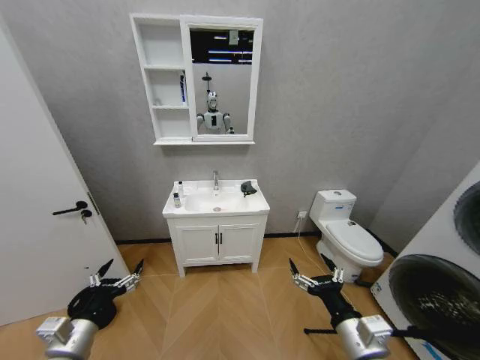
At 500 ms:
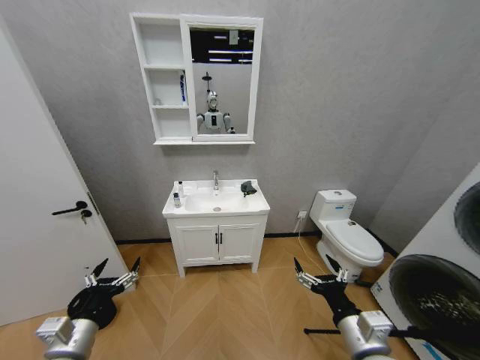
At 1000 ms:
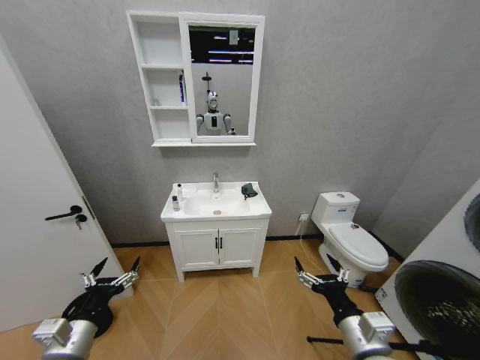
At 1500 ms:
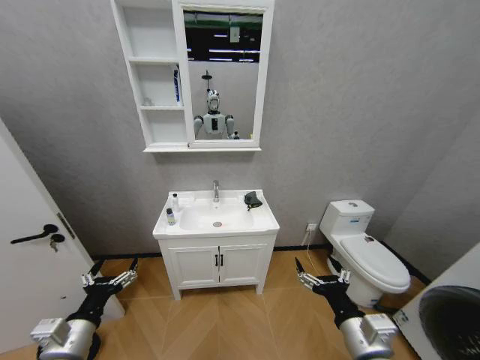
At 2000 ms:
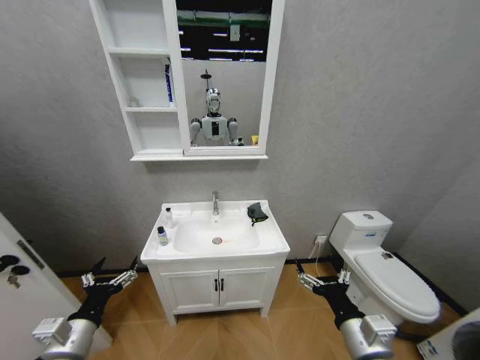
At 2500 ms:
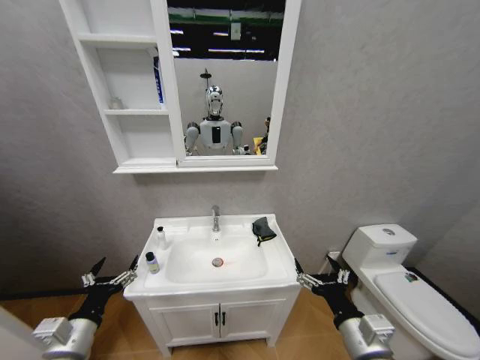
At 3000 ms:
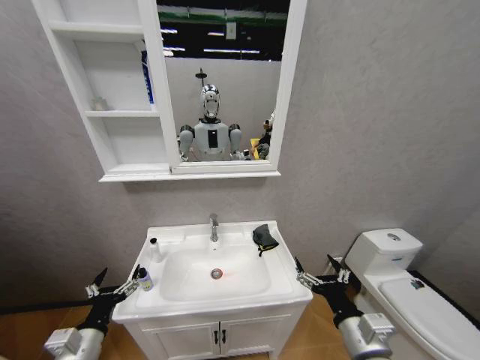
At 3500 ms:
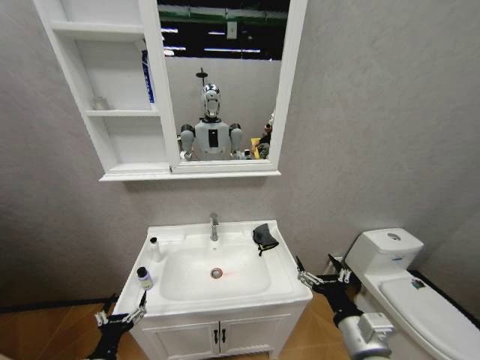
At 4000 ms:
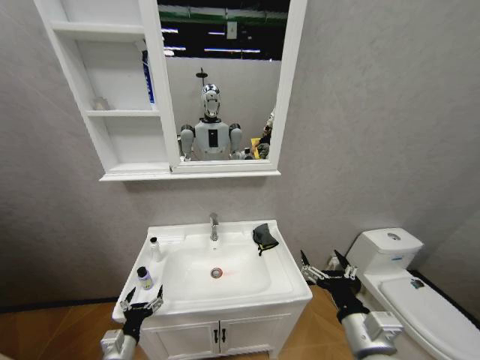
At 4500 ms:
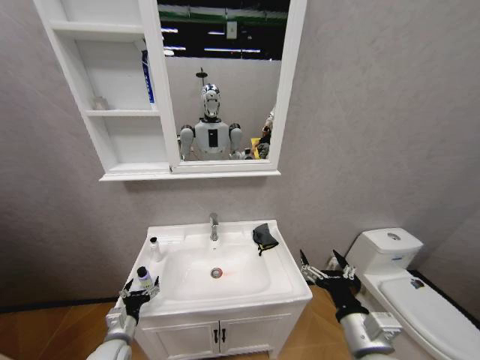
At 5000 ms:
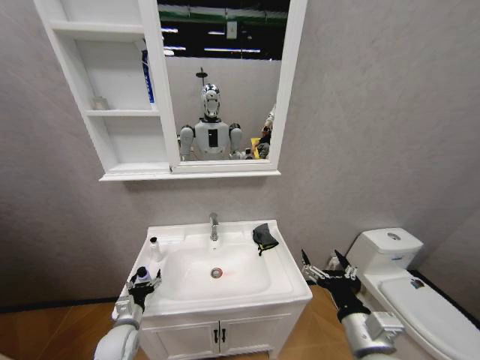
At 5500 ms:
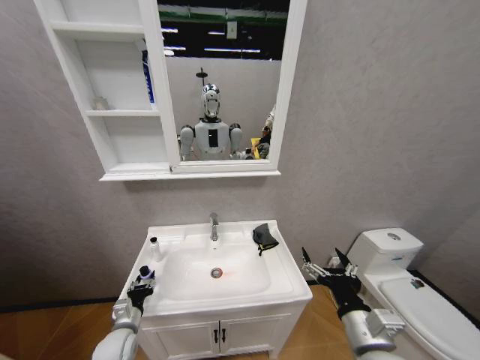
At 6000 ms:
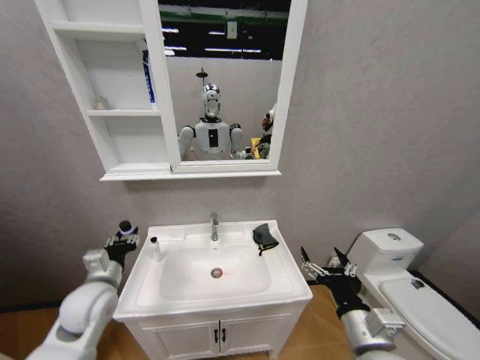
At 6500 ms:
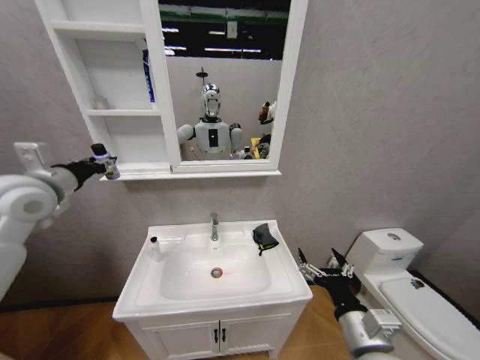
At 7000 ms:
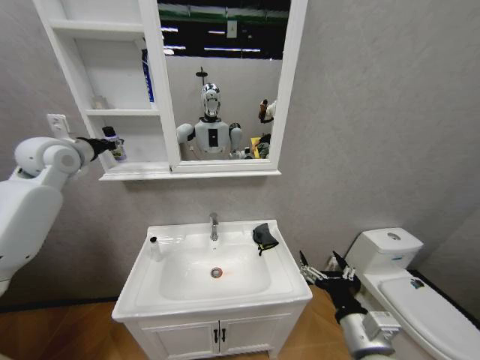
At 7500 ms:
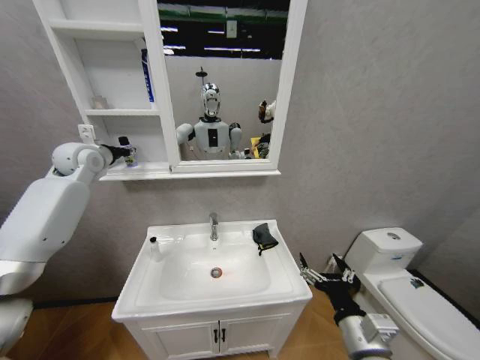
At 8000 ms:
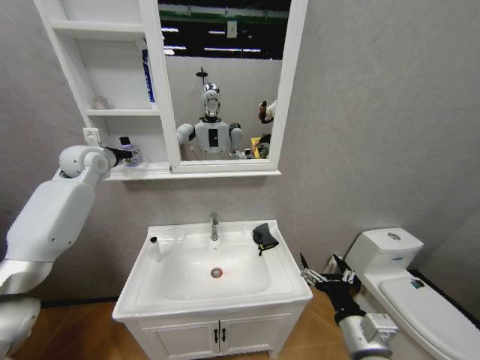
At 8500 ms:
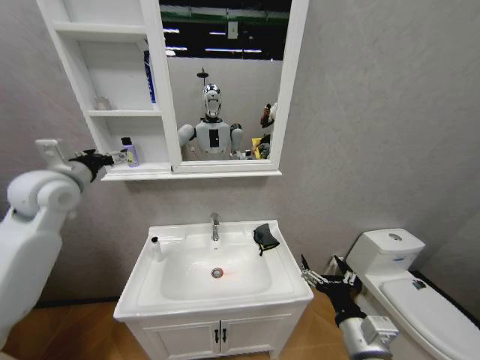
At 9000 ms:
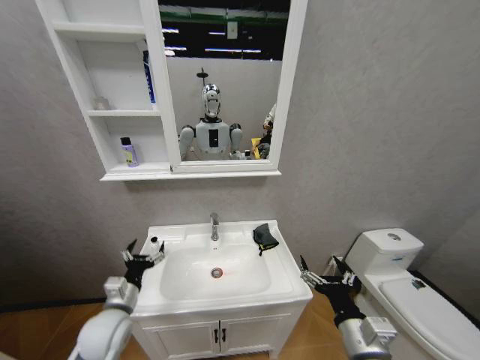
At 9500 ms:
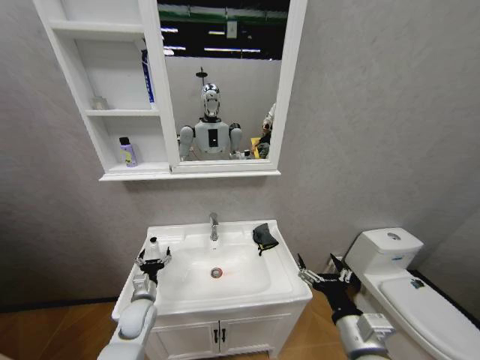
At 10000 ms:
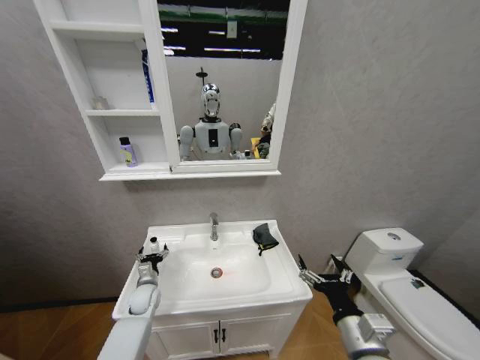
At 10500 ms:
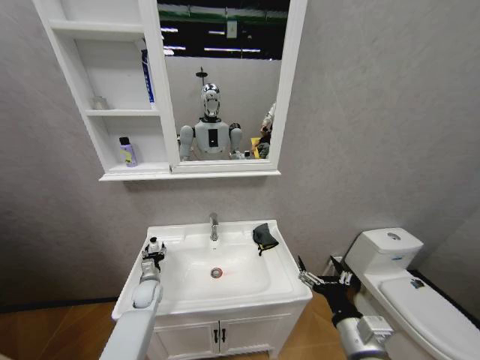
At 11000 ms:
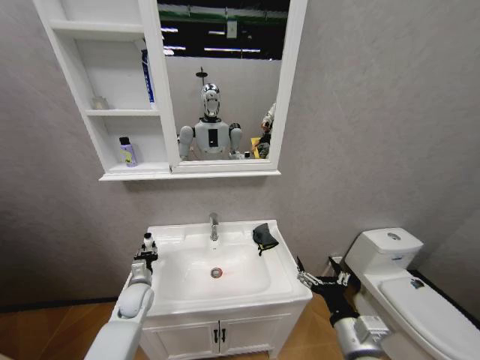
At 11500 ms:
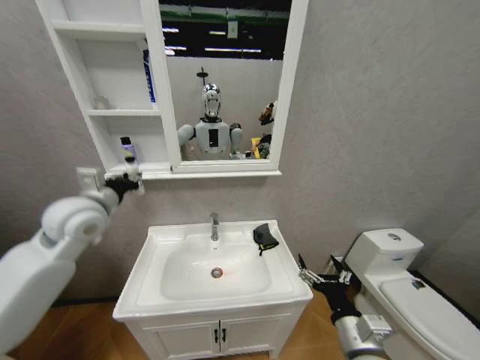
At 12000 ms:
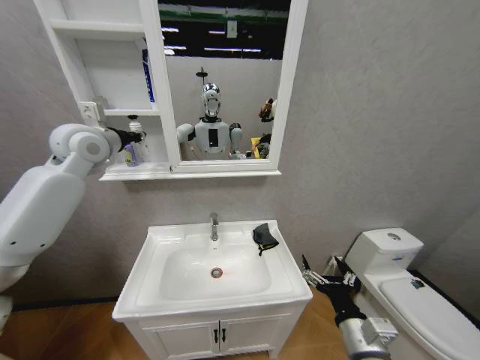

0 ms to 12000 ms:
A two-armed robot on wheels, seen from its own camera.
Task of the whole recording: Move facial cleanser and shampoo from washbasin to cabinet, then wipe washbasin with towel.
2000 ms to 4000 ms: The left gripper goes approximately 15 cm downward.
4000 ms to 6000 ms: The left gripper travels upward and forward by some 20 cm, and closes its fingers.
6000 ms to 8000 ms: The left gripper shifts approximately 35 cm upward and forward, and opens its fingers.
8000 ms to 10000 ms: The left gripper goes some 50 cm downward, and opens its fingers.
10000 ms to 12000 ms: The left gripper moves upward, about 50 cm, and closes up.

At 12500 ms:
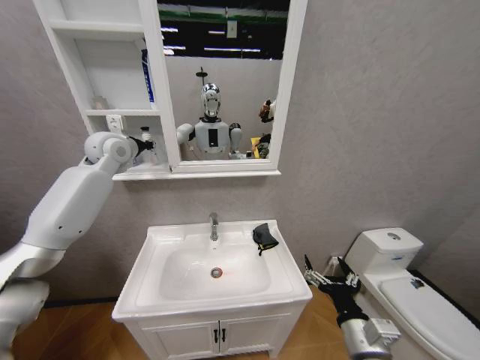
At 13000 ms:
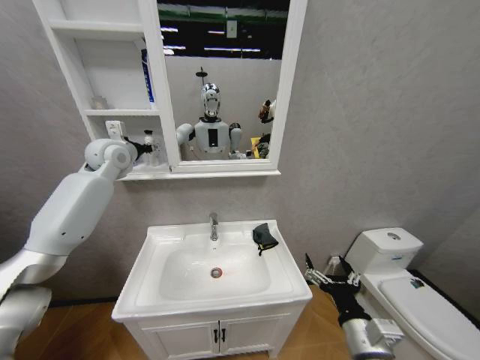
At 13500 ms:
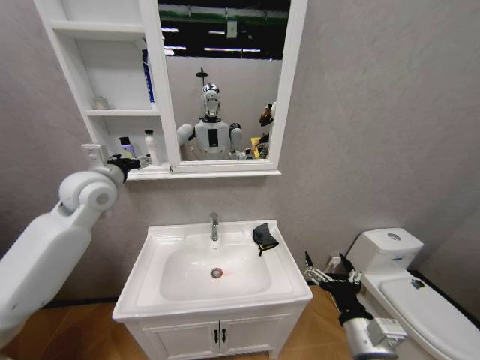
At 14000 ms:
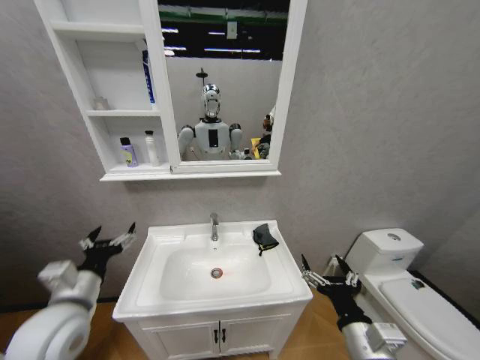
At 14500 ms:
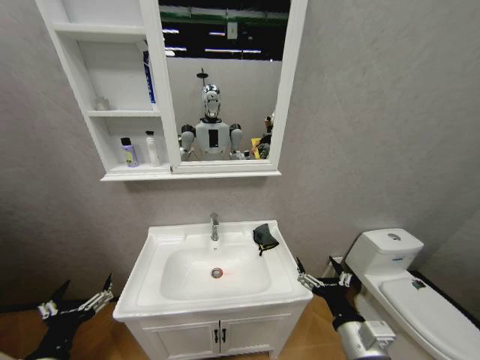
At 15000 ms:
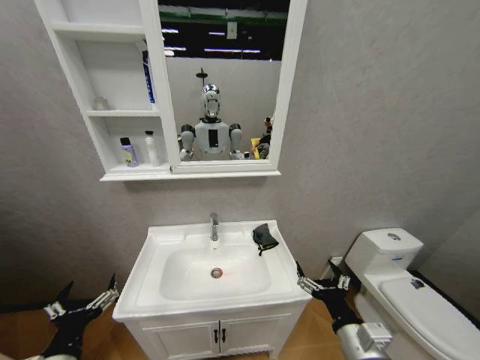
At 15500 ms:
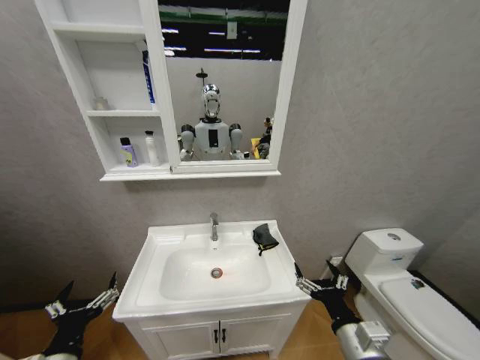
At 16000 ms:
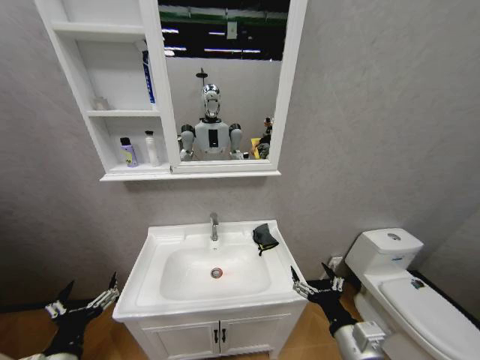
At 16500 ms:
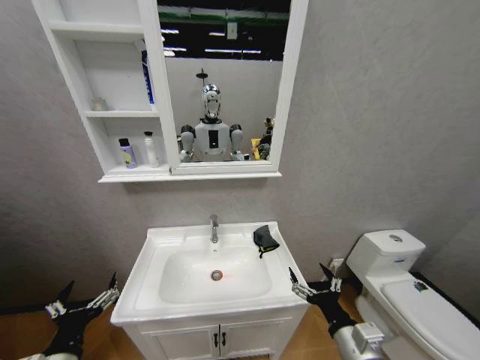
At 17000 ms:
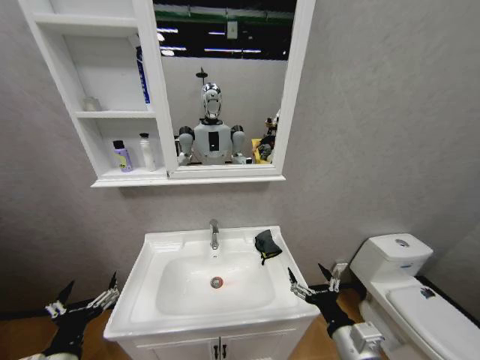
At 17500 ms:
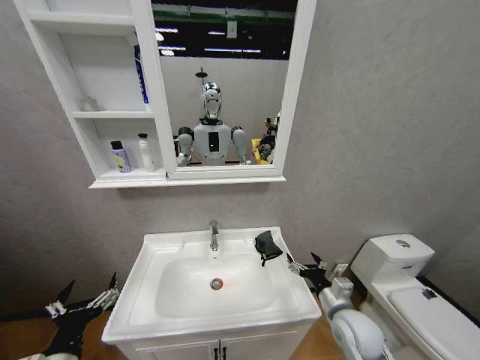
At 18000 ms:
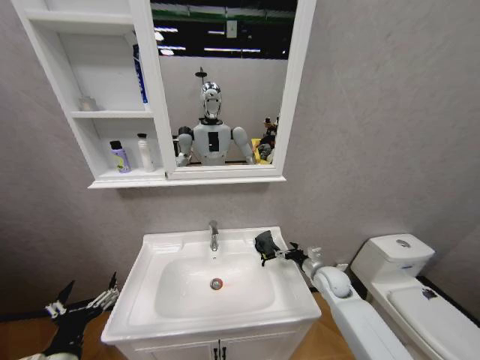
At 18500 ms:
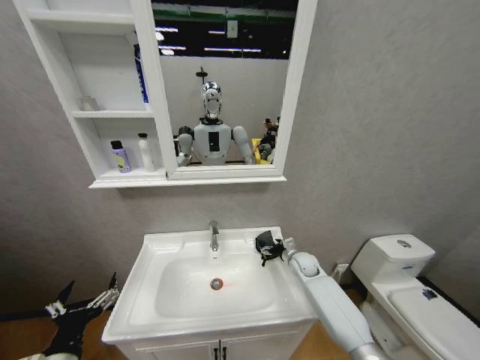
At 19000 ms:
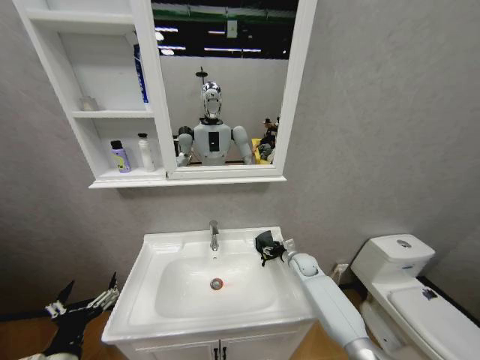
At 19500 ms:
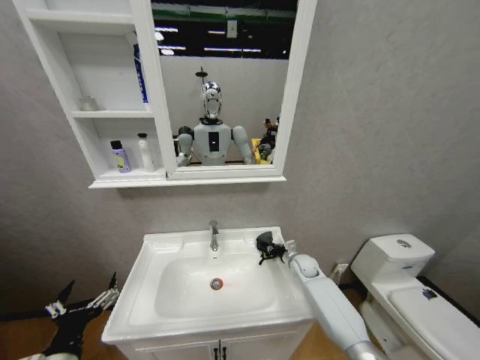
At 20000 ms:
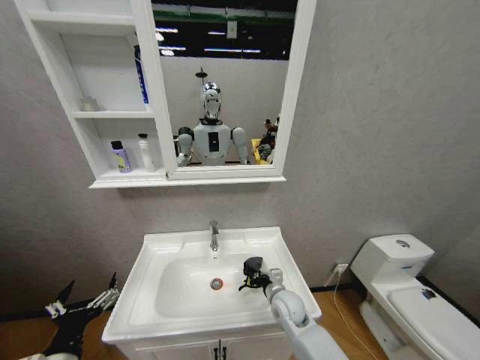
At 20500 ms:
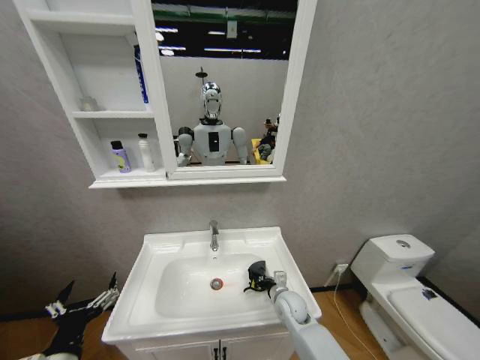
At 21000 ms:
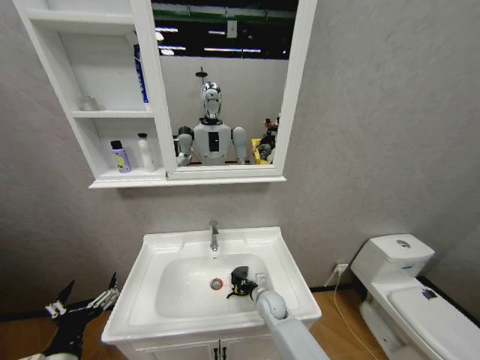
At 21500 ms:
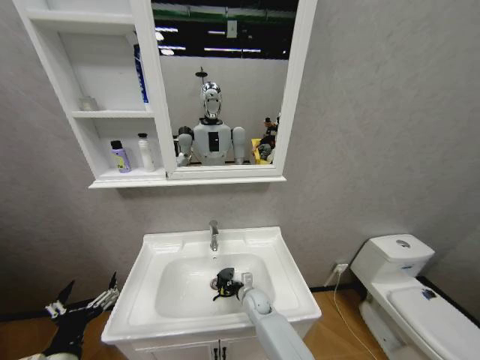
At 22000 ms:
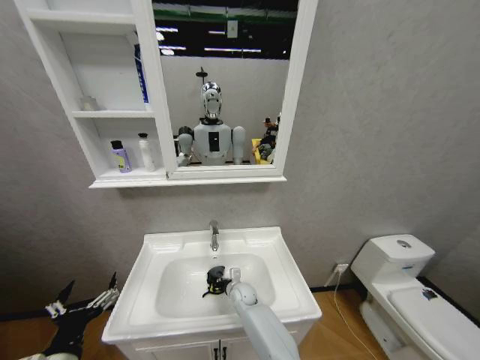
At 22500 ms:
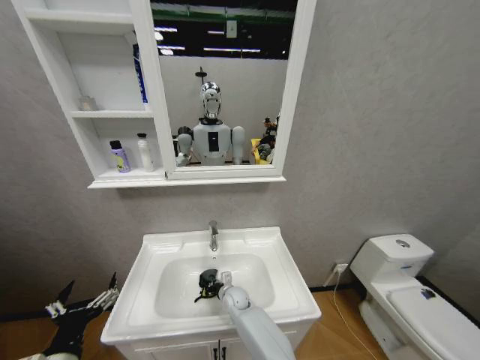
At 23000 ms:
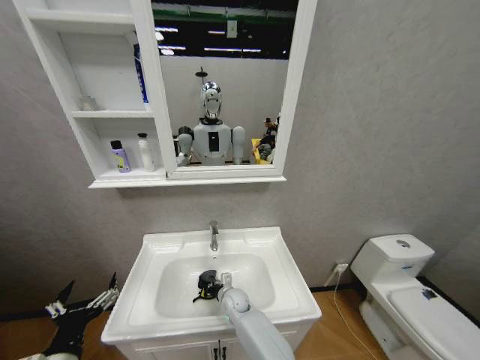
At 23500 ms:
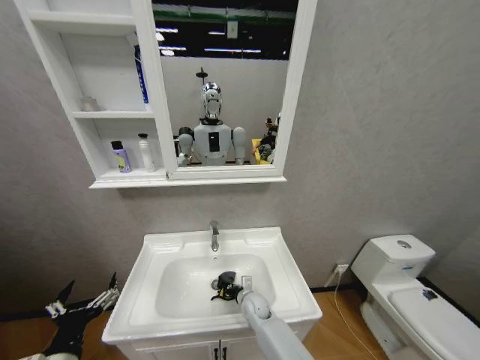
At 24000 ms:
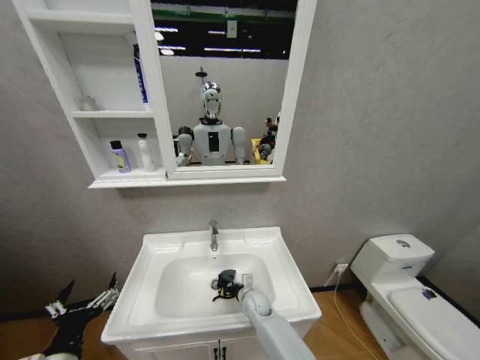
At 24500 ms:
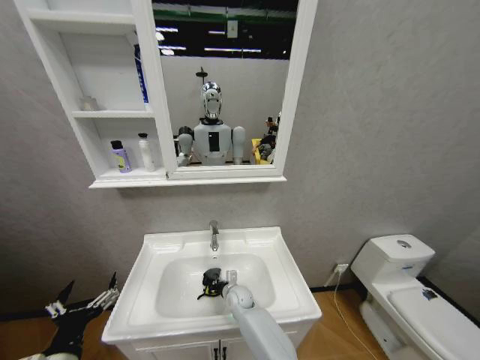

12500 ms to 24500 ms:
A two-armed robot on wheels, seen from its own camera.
Task of the whole recording: Move facial cleanser and shampoo from washbasin to cabinet, then wipe washbasin with towel.
12500 ms to 14500 ms: The left gripper goes approximately 50 cm backward and downward, and opens its fingers.
14500 ms to 16500 ms: The grippers make only small movements.
16500 ms to 18500 ms: The right gripper shifts roughly 35 cm forward.
18500 ms to 20500 ms: The right gripper shifts about 15 cm backward, to the left and downward, and closes.
20500 ms to 22500 ms: The right gripper travels to the left by some 15 cm.

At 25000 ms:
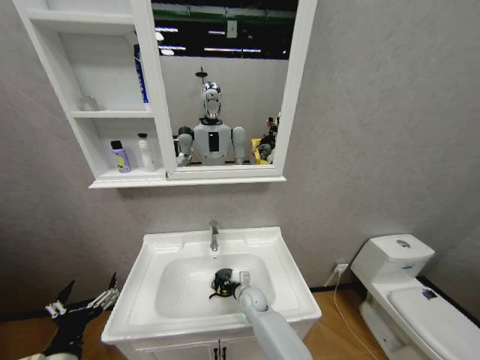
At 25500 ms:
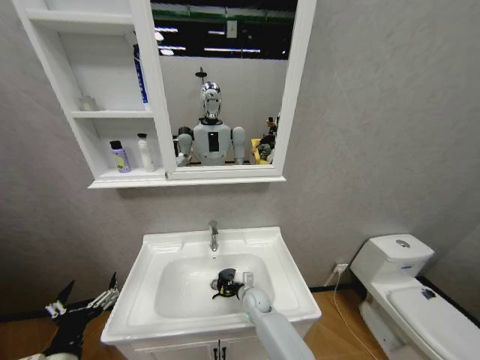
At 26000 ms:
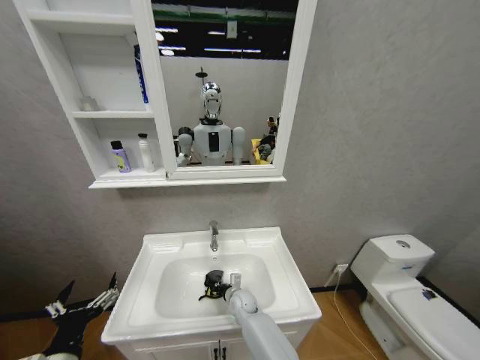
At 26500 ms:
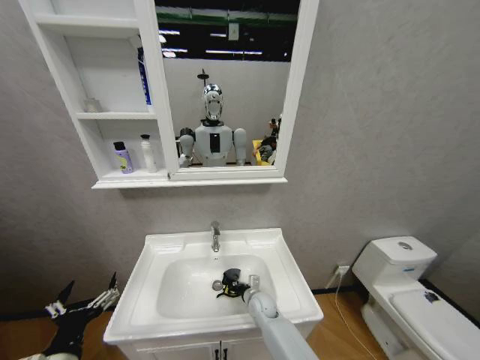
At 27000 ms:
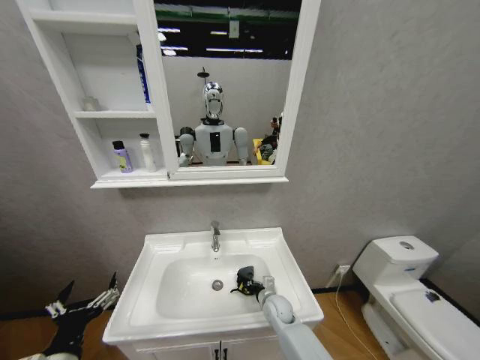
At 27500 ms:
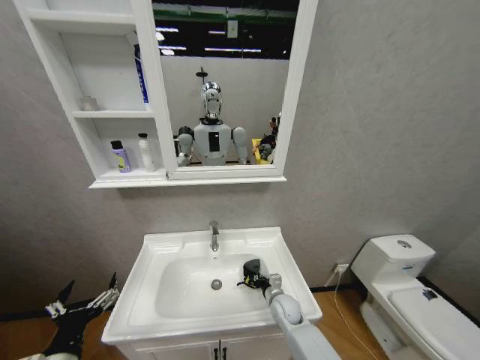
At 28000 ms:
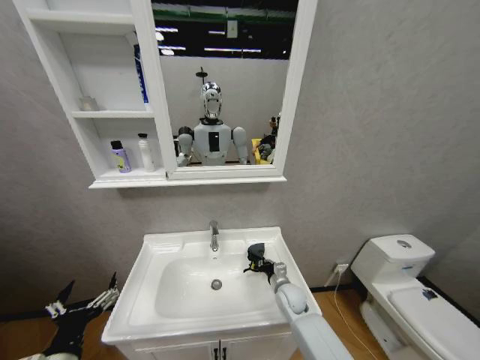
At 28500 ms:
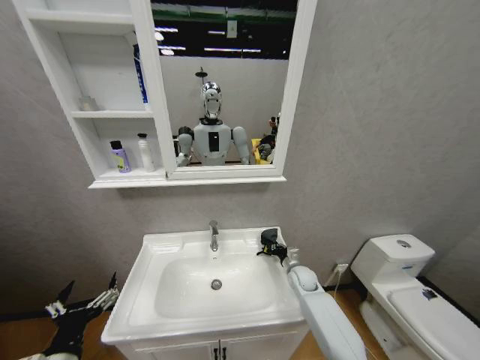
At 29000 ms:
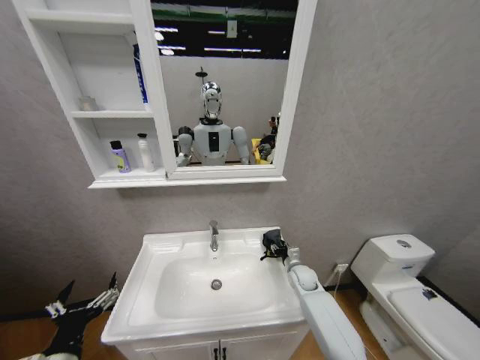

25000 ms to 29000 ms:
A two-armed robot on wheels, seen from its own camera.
Task of the whole recording: Move facial cleanser and shampoo from washbasin to cabinet, then wipe washbasin with towel.
25000 ms to 27000 ms: The right gripper moves to the right, some 10 cm.
27000 ms to 29000 ms: The right gripper goes approximately 15 cm to the right, forward and upward.
